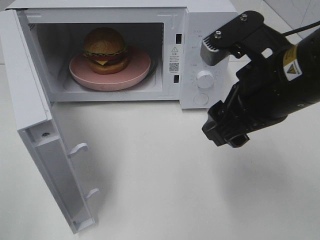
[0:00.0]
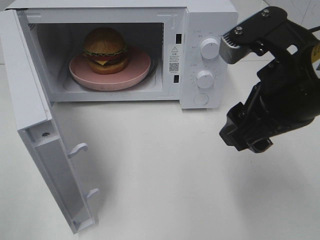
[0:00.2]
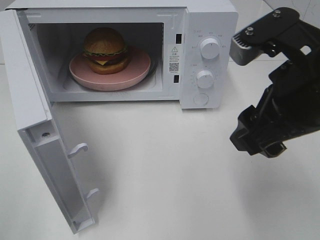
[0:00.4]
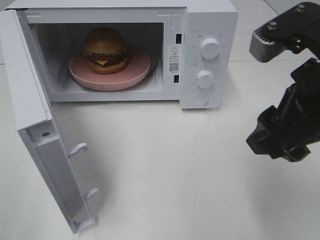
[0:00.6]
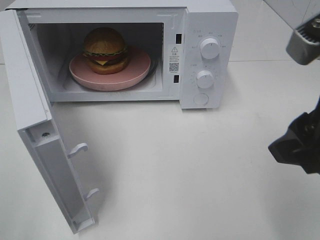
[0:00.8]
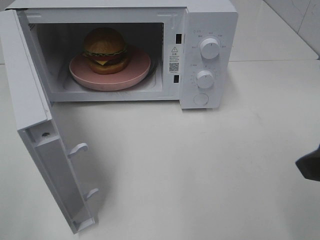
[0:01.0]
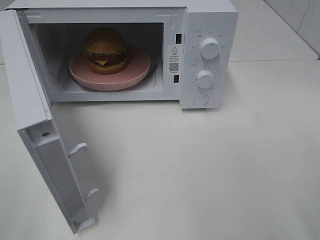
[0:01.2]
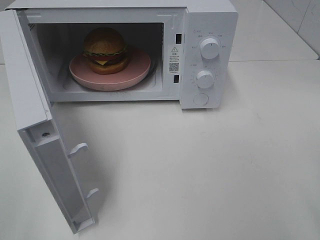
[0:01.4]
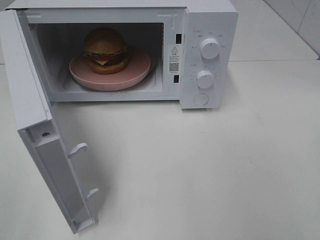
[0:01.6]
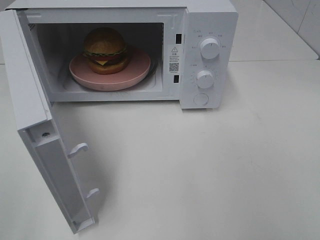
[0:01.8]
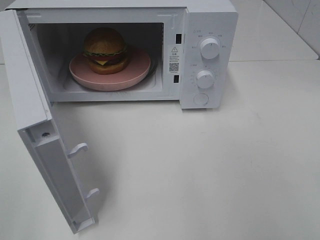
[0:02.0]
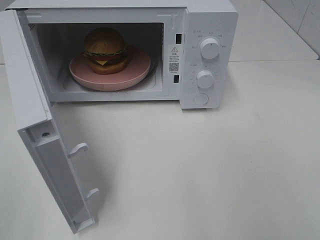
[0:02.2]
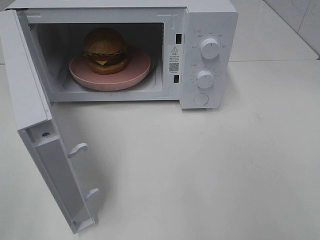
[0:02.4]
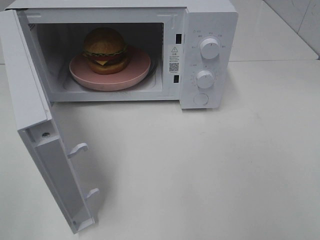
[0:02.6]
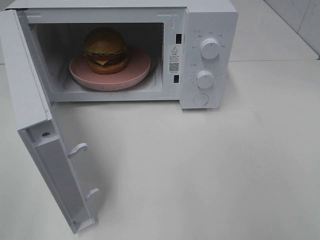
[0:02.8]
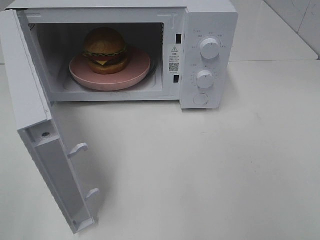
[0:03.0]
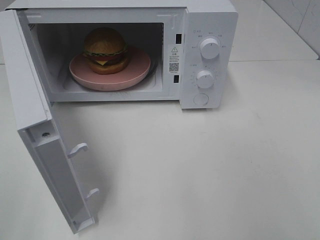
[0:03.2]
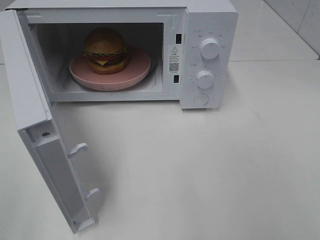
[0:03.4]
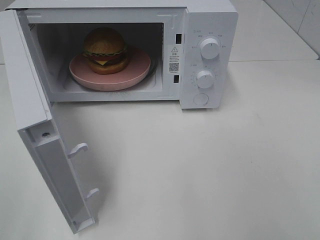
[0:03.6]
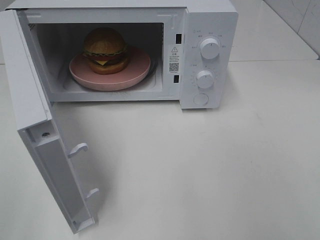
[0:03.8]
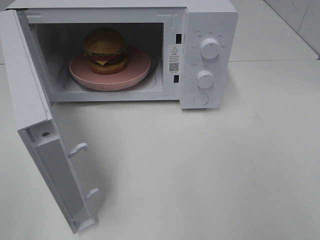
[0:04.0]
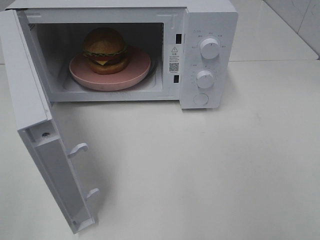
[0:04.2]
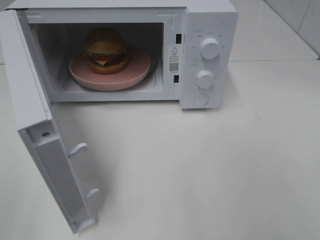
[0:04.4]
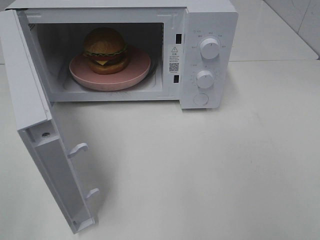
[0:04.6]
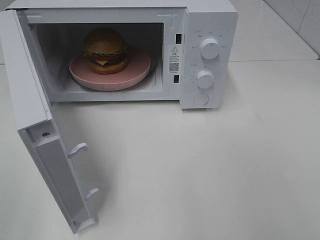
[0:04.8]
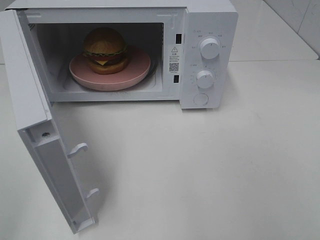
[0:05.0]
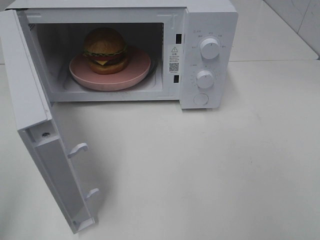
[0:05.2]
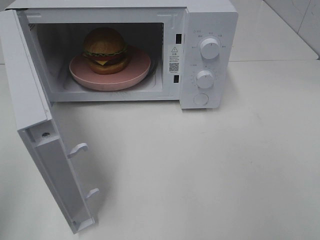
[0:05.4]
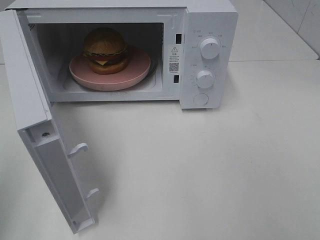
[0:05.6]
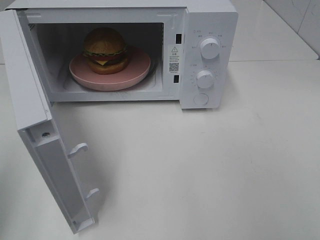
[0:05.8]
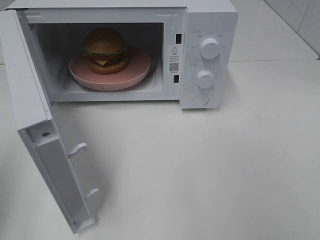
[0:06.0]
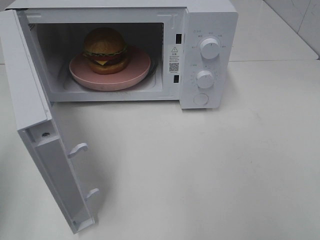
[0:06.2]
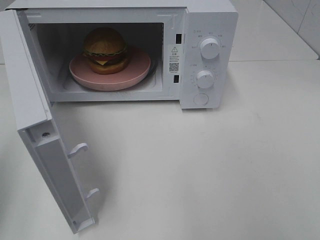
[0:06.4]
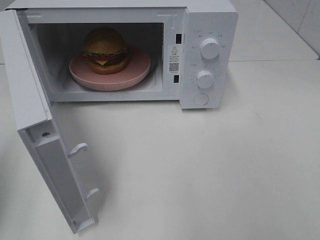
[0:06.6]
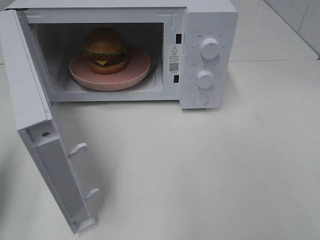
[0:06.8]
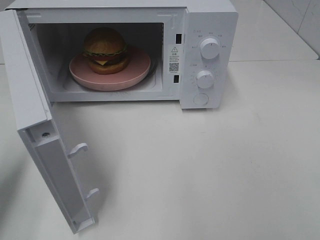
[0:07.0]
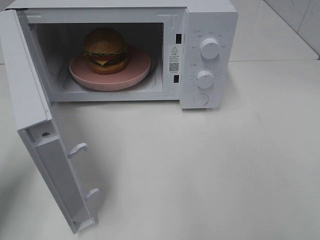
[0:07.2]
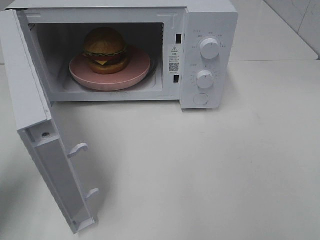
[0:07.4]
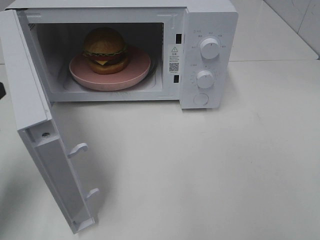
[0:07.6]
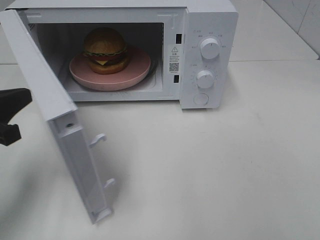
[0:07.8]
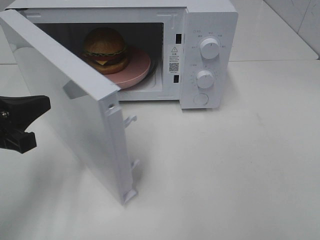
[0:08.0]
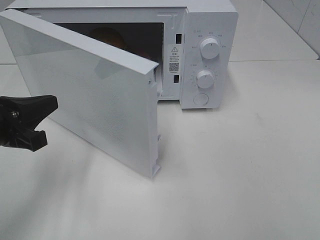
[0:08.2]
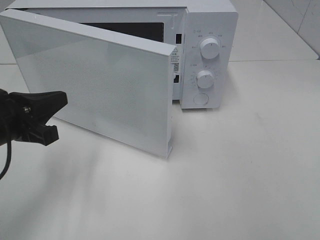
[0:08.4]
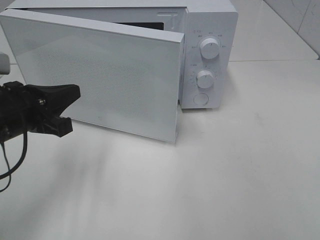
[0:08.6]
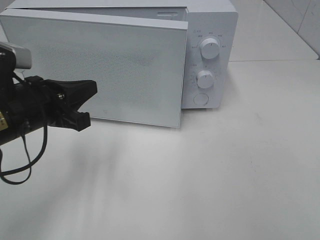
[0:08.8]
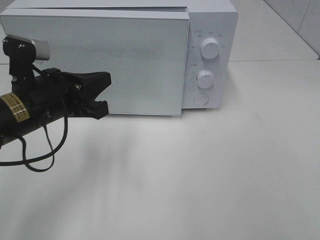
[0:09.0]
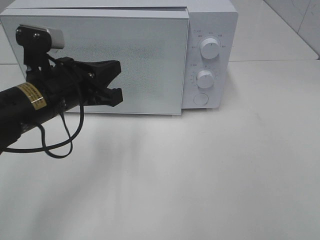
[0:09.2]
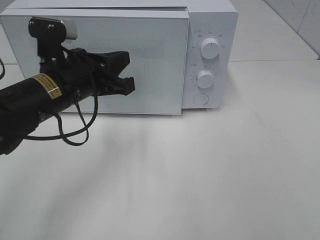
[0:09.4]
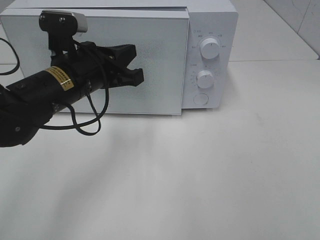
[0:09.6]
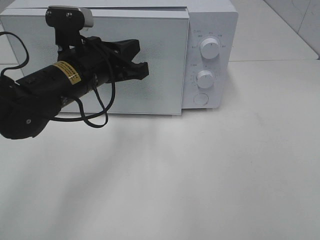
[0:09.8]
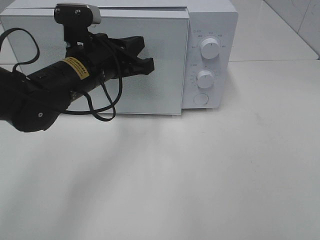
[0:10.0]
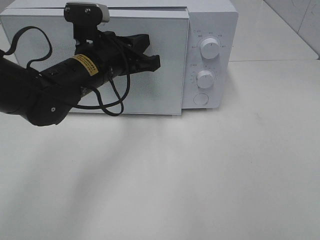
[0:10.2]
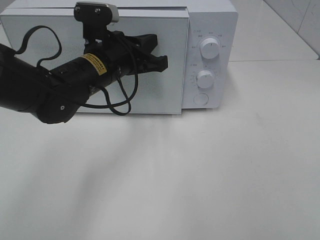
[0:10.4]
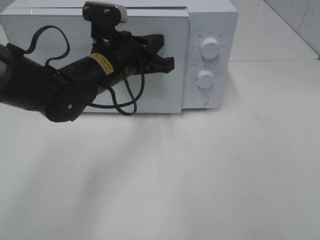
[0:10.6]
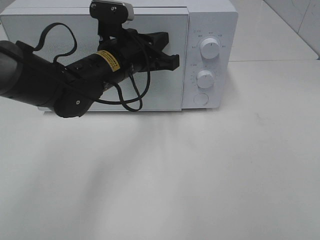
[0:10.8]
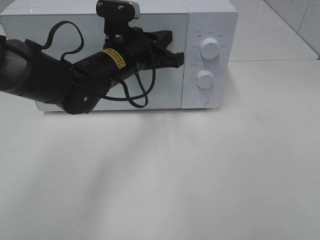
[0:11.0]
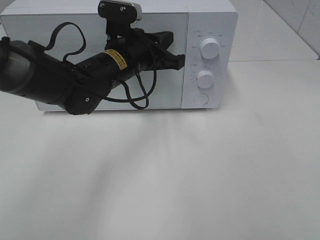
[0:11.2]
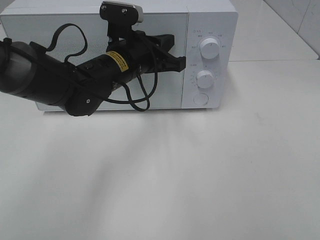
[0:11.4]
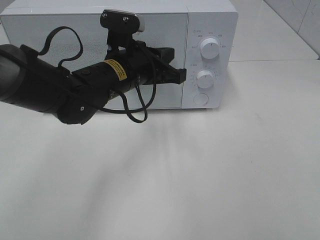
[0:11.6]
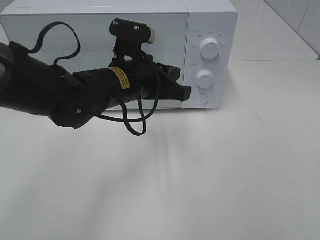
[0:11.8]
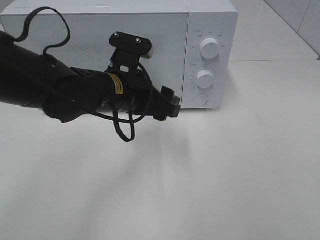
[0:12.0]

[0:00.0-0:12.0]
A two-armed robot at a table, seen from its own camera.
Task of the whole recording: Heat the burger.
Step, 0:00.0 to 0:11.8: Left hand: close the microwave door.
0:00.0 to 0:01.6: The right gripper is displaced to the right and backward by some 20 cm.
0:03.0 to 0:04.4: Both grippers stay about where they are.
0:06.0 to 0:07.6: The left gripper travels downward and forward by about 10 cm.
0:07.6 to 0:09.0: The left gripper goes some 15 cm to the right and forward.
0:09.0 to 0:10.4: The left gripper shifts about 10 cm to the right and forward.
0:10.4 to 0:12.0: The left gripper moves about 5 cm, and opens up.

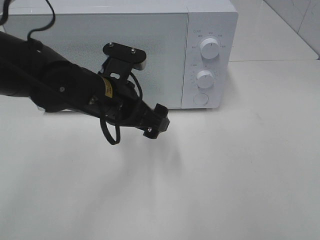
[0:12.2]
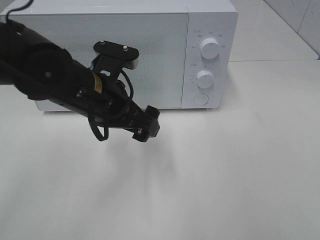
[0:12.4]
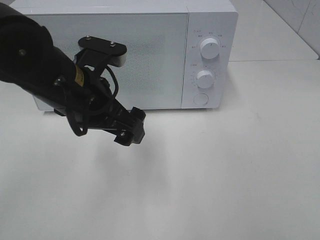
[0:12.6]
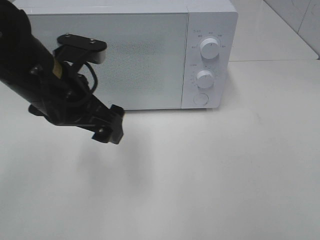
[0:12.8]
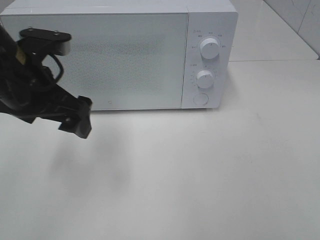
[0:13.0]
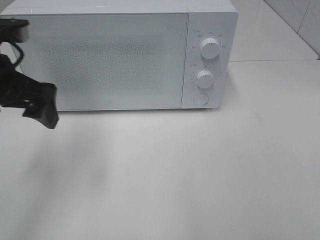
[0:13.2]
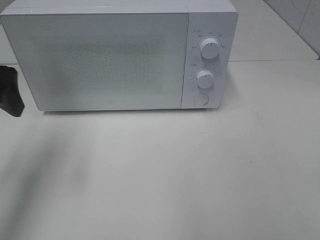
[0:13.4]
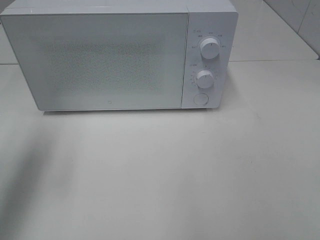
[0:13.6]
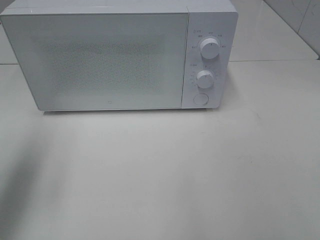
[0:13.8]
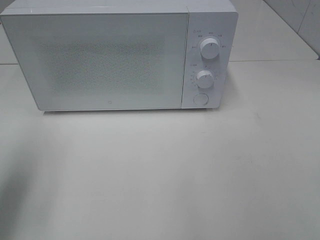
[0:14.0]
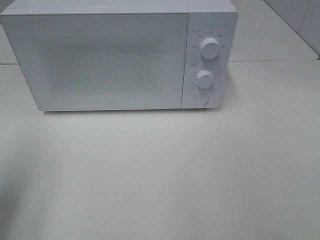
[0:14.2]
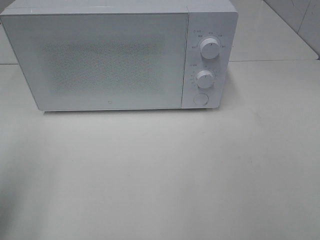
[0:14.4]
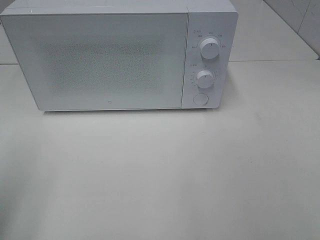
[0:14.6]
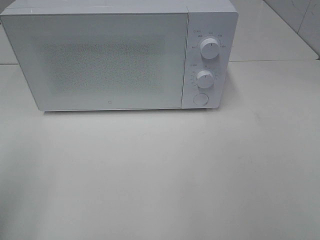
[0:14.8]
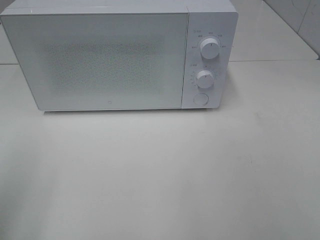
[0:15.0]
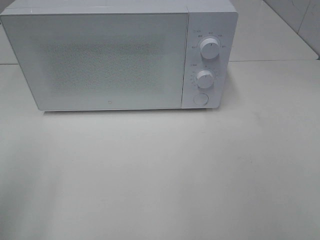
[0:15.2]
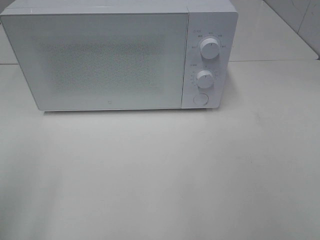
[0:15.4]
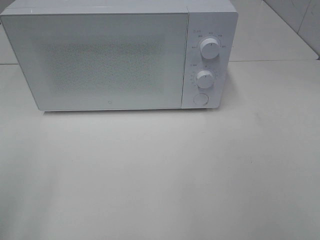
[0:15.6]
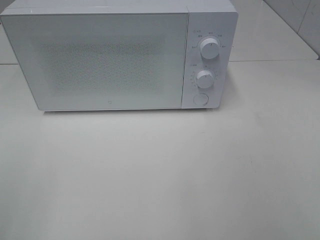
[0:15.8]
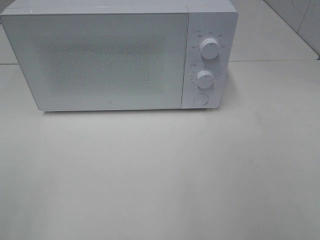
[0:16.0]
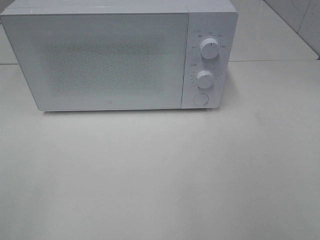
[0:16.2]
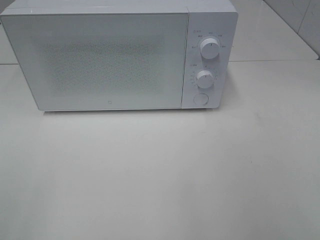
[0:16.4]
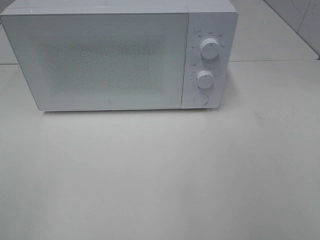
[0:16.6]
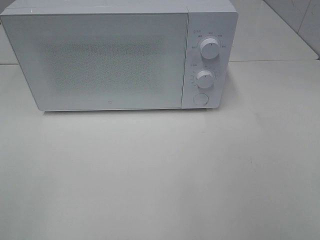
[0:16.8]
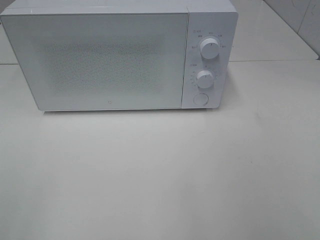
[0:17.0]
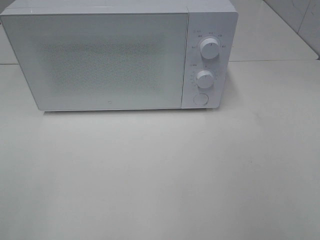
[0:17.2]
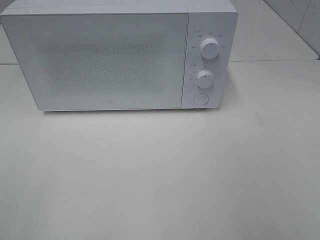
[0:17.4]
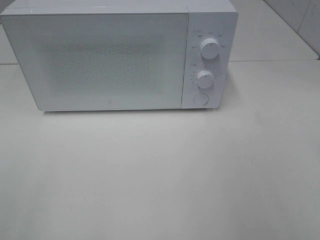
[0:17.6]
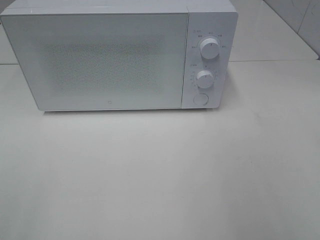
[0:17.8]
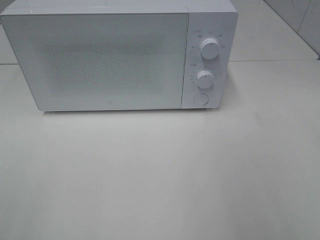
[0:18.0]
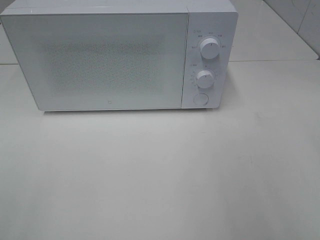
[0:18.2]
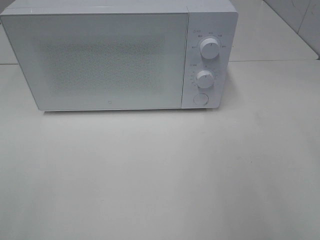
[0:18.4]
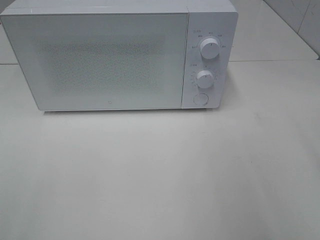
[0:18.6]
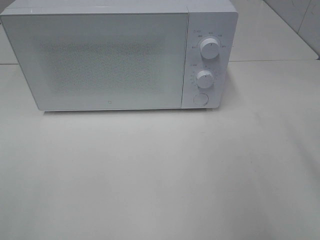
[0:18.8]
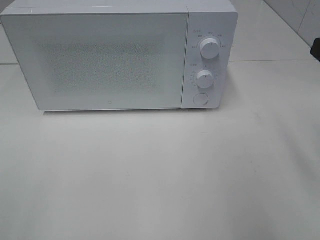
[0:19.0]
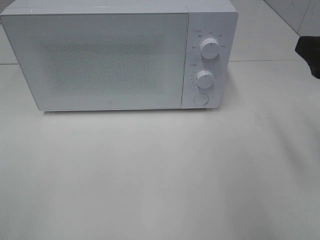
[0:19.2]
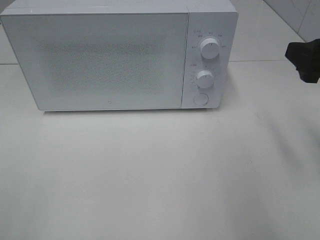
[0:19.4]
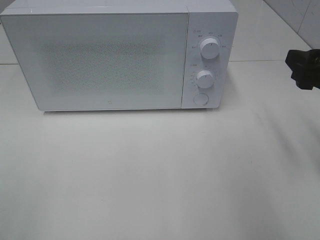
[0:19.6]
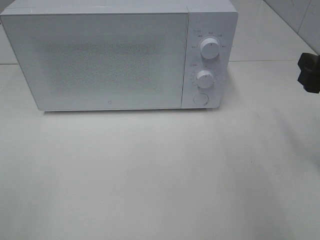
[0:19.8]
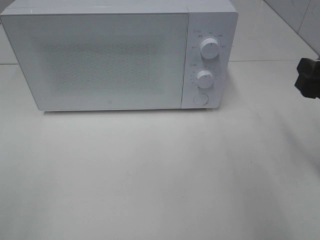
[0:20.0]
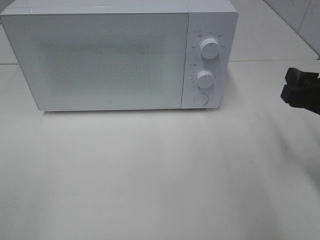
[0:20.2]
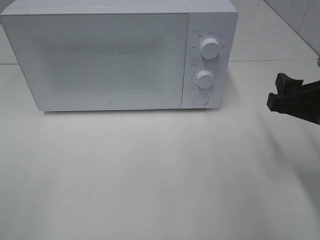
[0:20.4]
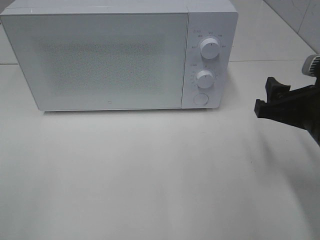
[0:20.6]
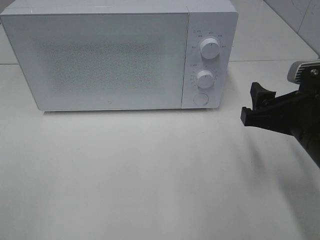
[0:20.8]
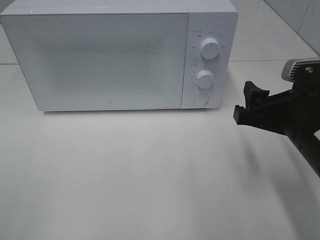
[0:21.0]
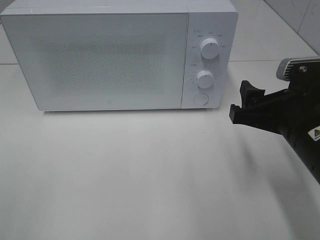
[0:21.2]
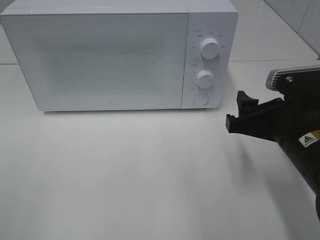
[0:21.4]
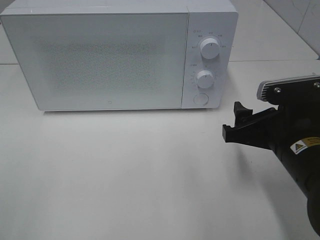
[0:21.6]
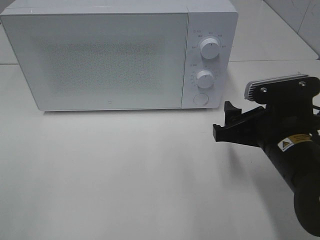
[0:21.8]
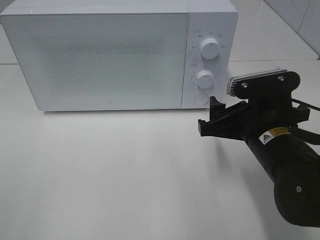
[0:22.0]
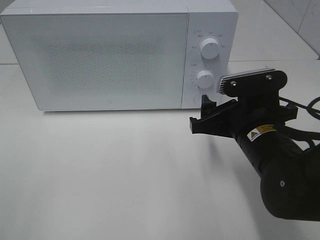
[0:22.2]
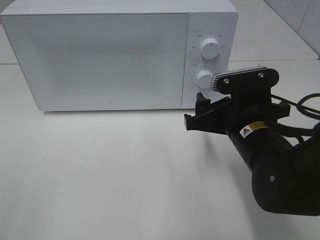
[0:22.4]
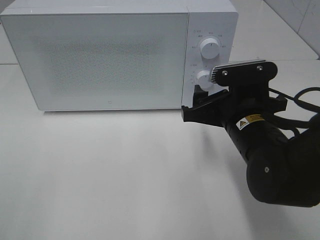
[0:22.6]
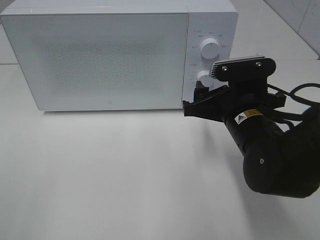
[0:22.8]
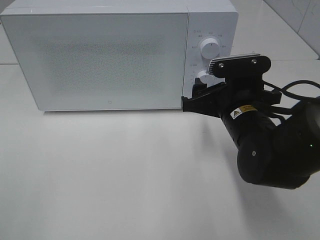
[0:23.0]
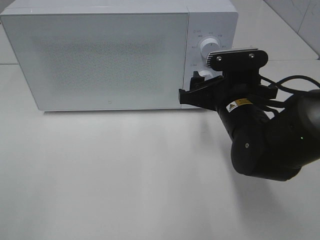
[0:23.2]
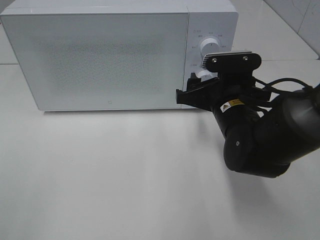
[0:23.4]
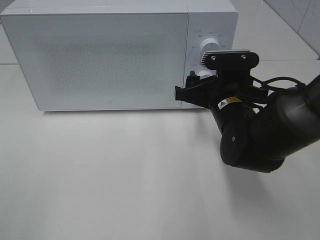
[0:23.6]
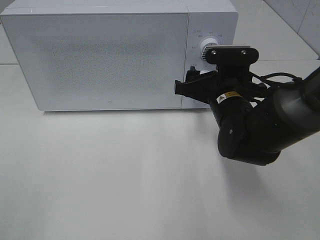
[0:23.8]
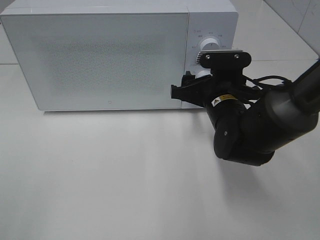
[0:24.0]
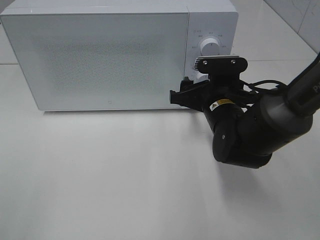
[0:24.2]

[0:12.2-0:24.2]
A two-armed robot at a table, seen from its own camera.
Task of the whole recording: Heat the burger.
0:12.2 to 0:13.8: The left gripper heads to the left and upward, covering roughly 25 cm.
0:13.8 to 0:15.2: The left gripper travels backward by approximately 10 cm.
0:18.2 to 0:19.8: The right gripper goes about 15 cm forward and downward.
0:19.8 to 0:21.2: The right gripper travels to the left by roughly 10 cm.
0:21.2 to 0:22.6: The right gripper goes some 10 cm to the left and forward.
0:22.6 to 0:24.2: The right gripper goes some 5 cm forward.
